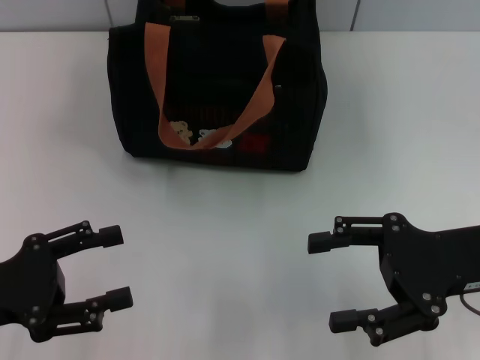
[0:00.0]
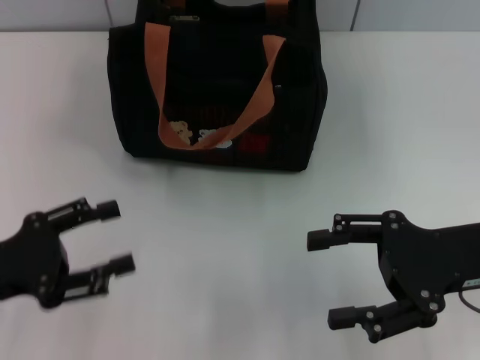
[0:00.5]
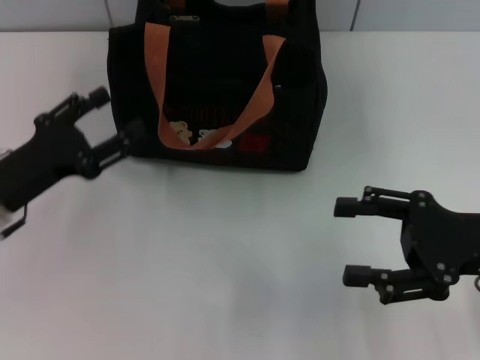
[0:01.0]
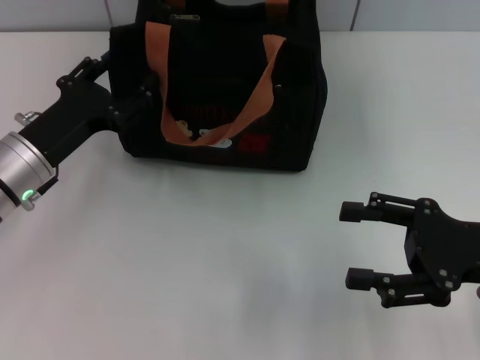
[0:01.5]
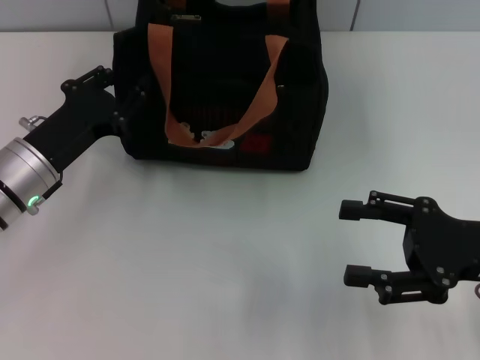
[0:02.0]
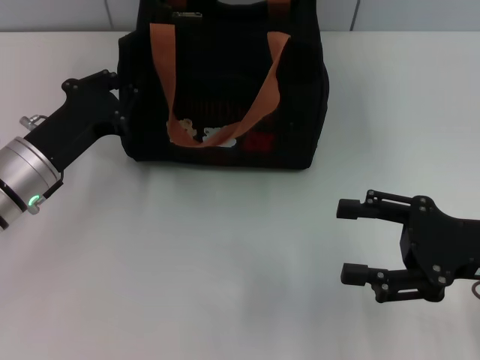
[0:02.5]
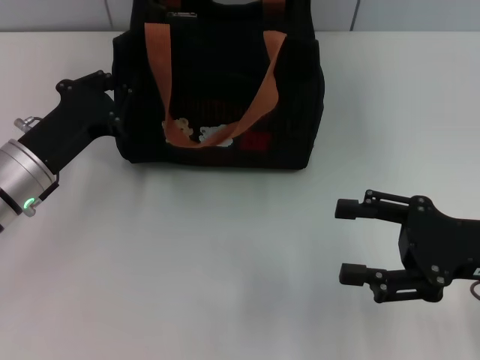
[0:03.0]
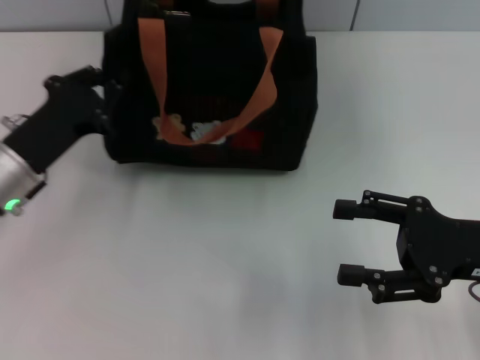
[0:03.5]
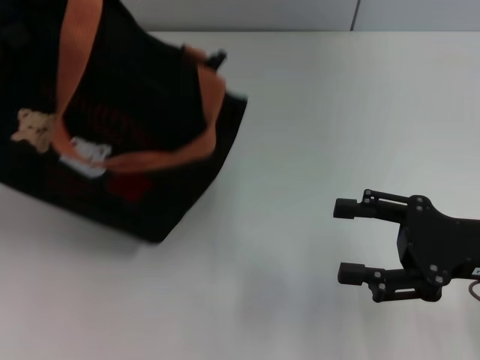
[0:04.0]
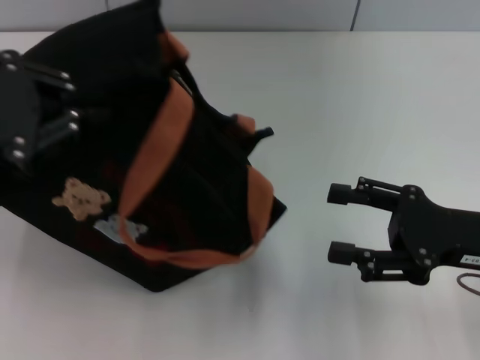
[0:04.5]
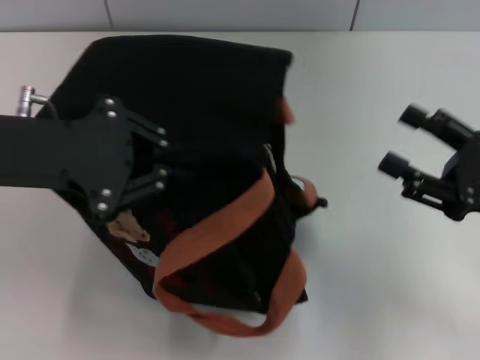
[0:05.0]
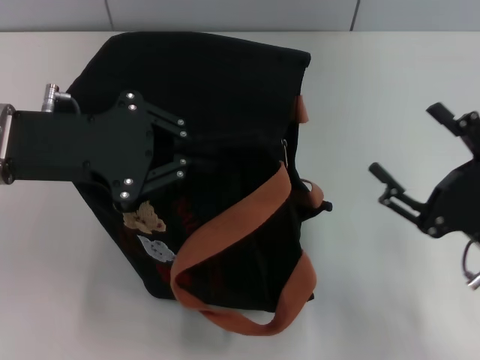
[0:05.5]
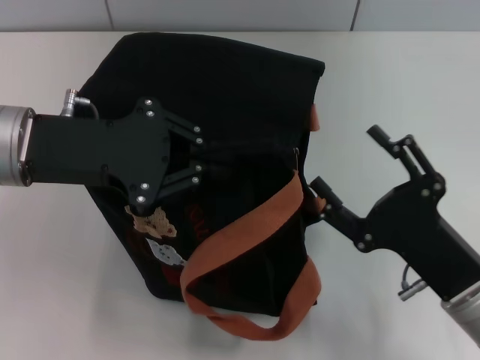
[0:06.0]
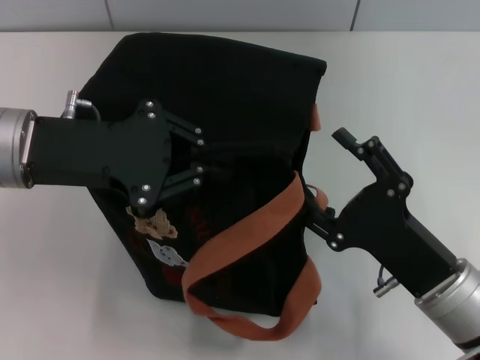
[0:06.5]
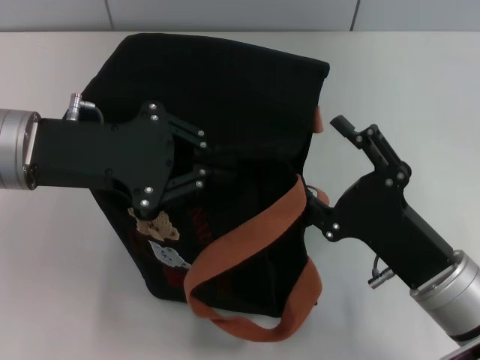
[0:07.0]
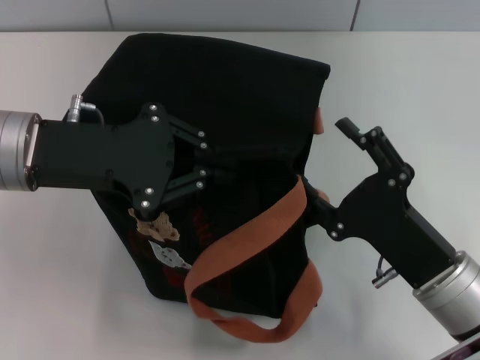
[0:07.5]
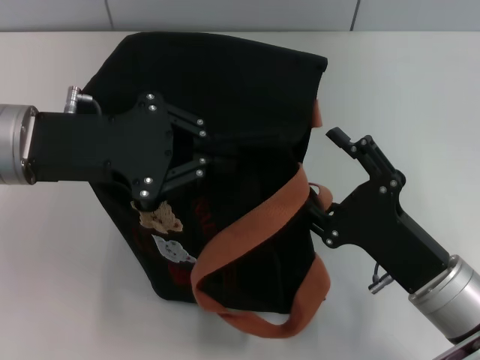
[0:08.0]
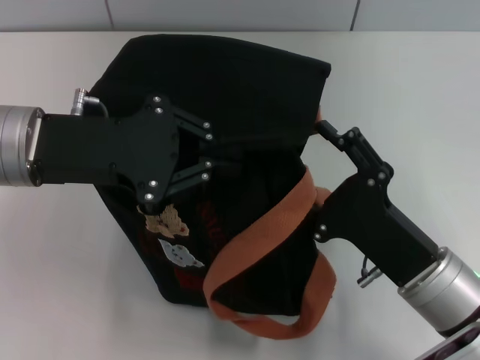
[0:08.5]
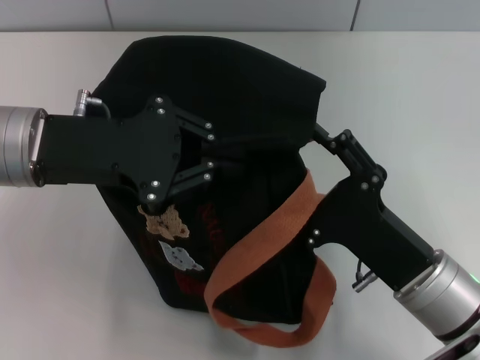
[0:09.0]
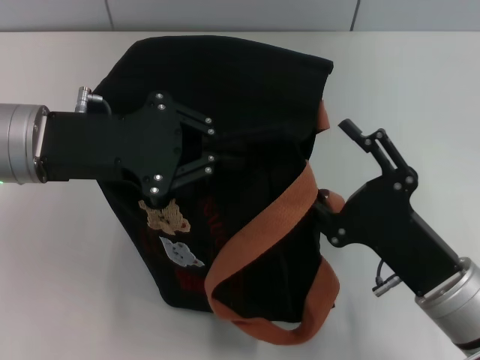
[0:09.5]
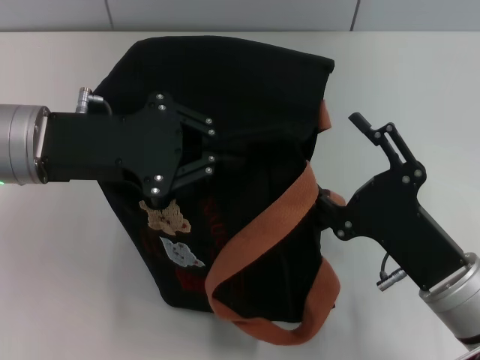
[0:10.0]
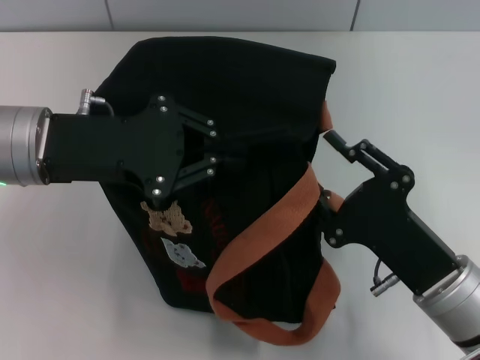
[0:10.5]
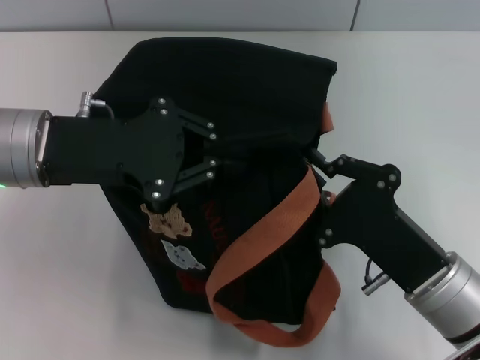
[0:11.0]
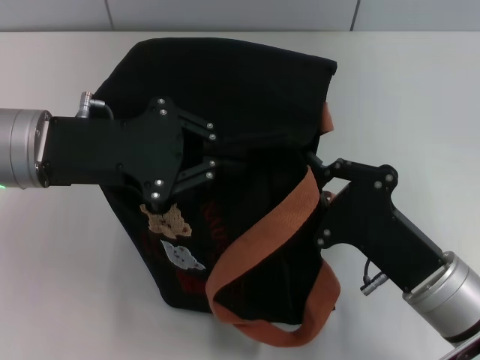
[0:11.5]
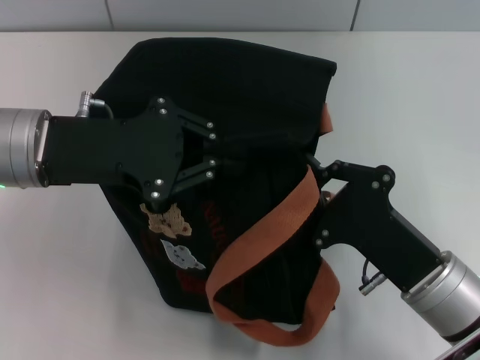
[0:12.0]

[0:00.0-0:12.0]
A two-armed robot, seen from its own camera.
0:00.0 to 0:02.0: The left gripper travels forward and to the right by approximately 15 cm.
0:02.0 to 0:04.0: The left gripper moves upward and to the left, approximately 15 cm, and closes up.
0:04.0 to 0:06.0: The right gripper is displaced to the left, backward and downward by approximately 10 cm. Meanwhile the left gripper moves to the right, some 10 cm.
0:06.0 to 0:10.0: The grippers make only small movements.
0:10.0 to 0:12.0: The right gripper closes its fingers.

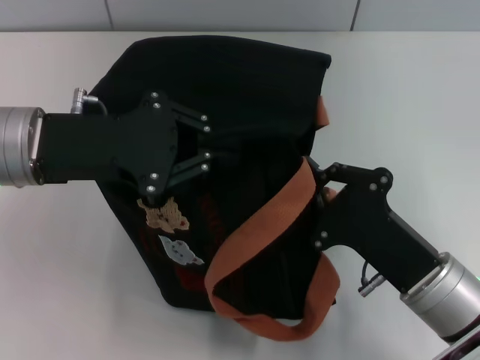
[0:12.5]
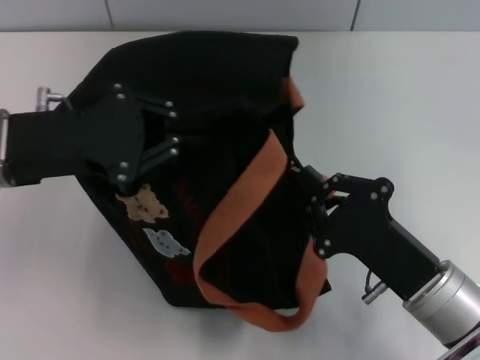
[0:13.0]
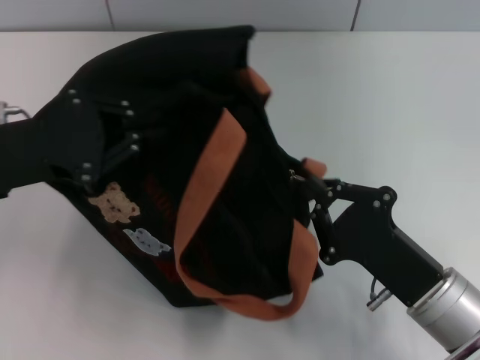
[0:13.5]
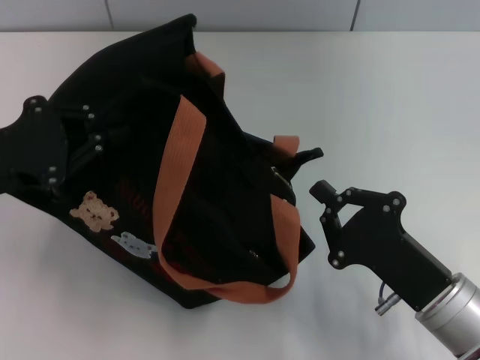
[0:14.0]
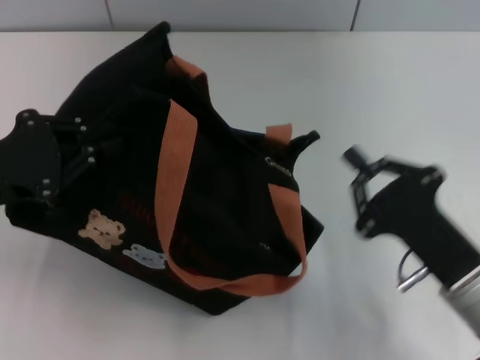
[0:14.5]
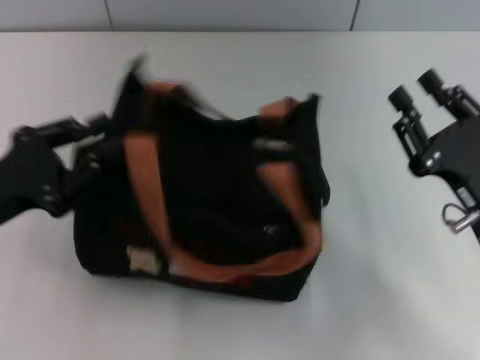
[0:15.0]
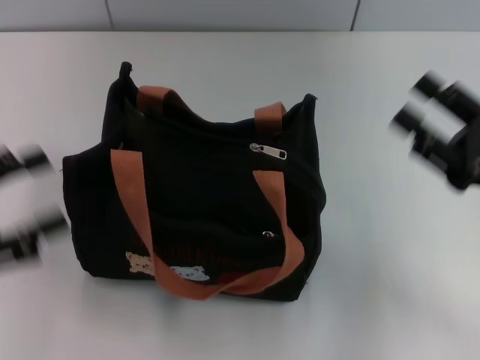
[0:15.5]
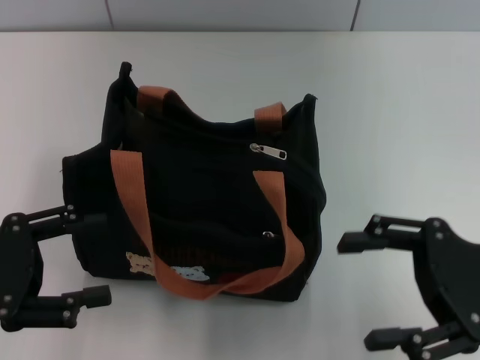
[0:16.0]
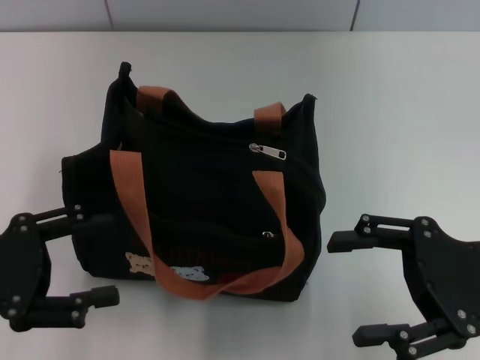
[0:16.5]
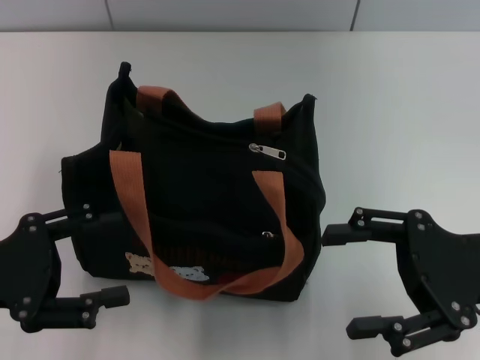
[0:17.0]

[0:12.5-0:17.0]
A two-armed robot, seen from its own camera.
Step, 0:14.0 to 0:15.0: Grab the bag with your left hand.
0:12.5 to 0:14.5: The left gripper is displaced to the left by roughly 10 cm.
0:14.5 to 0:17.0: The right gripper shifts approximately 5 cm upward, and opens its fingers, while the left gripper travels backward by roughly 5 cm, and opens its fingers.

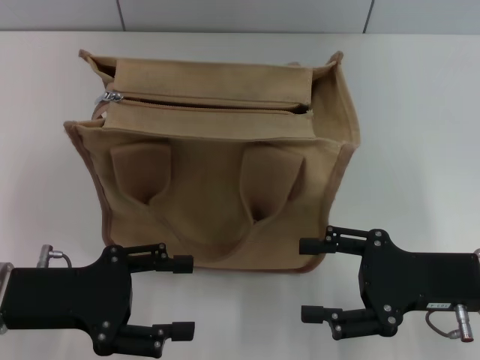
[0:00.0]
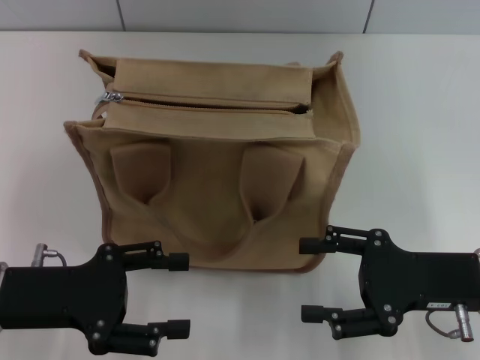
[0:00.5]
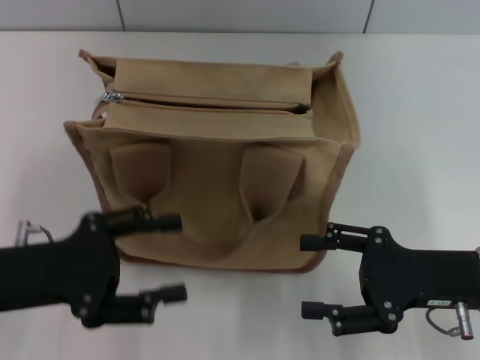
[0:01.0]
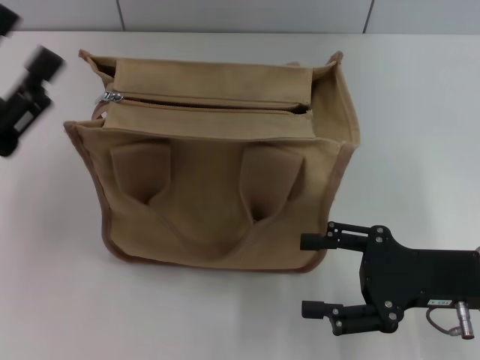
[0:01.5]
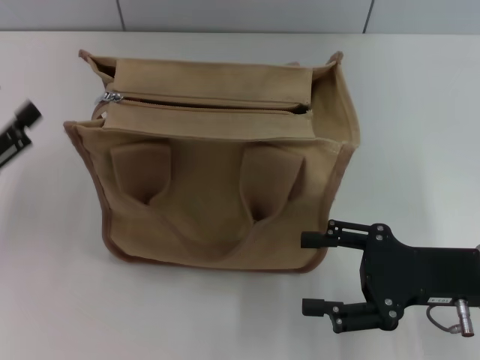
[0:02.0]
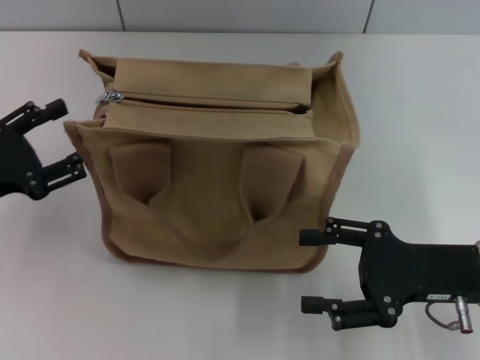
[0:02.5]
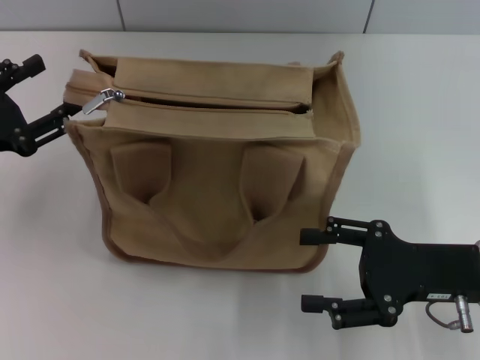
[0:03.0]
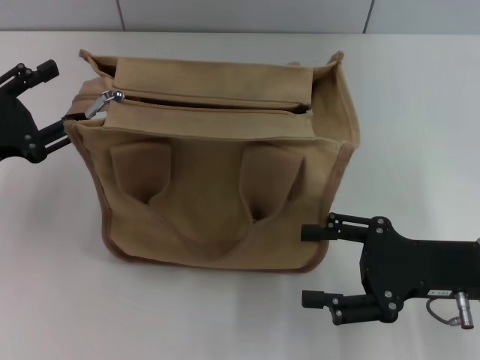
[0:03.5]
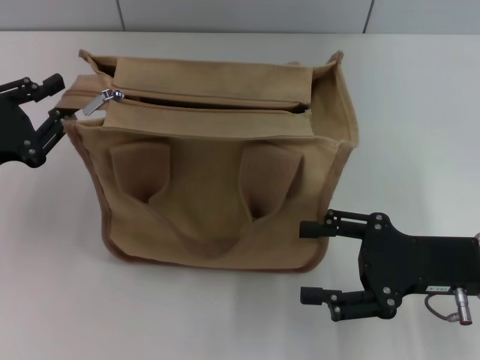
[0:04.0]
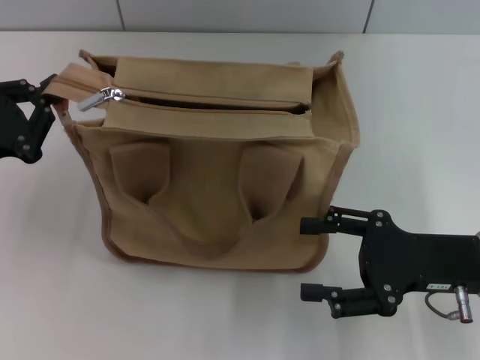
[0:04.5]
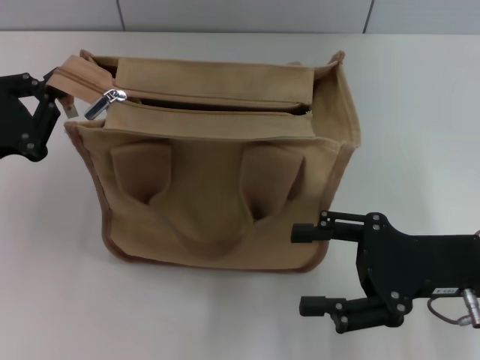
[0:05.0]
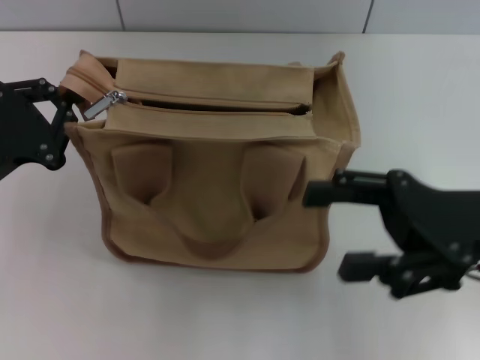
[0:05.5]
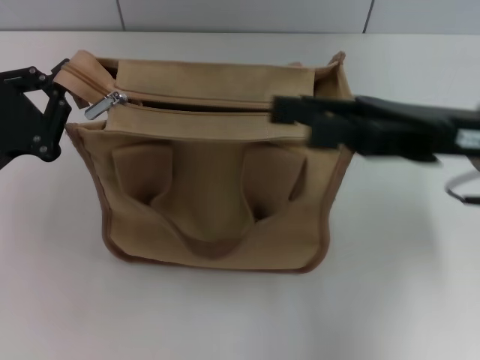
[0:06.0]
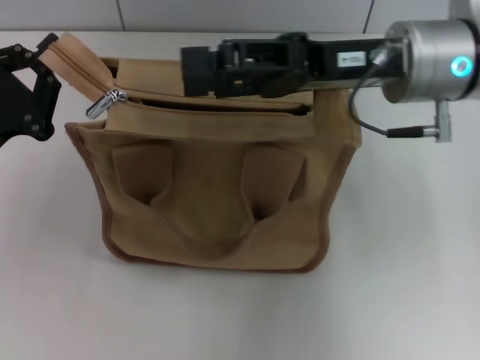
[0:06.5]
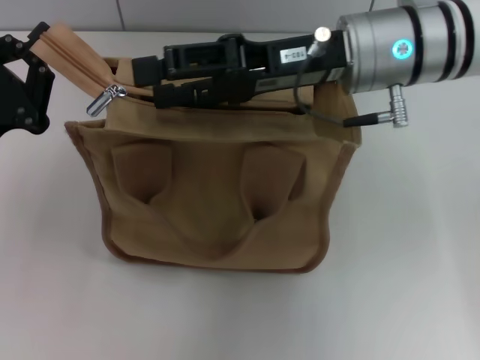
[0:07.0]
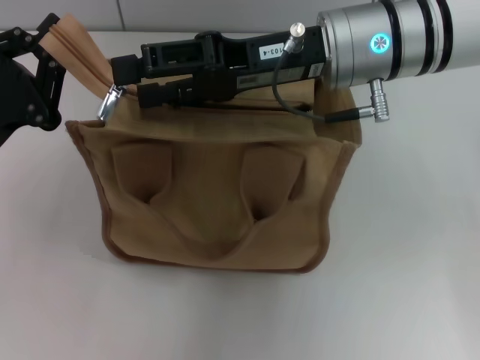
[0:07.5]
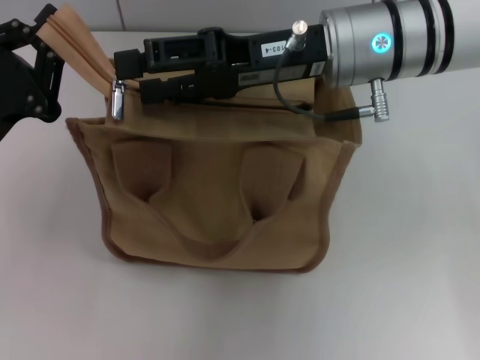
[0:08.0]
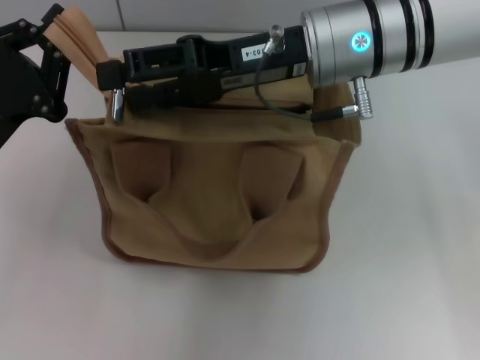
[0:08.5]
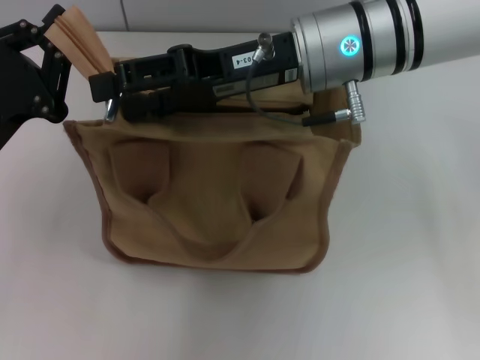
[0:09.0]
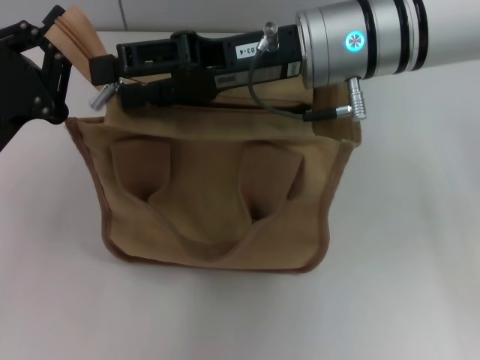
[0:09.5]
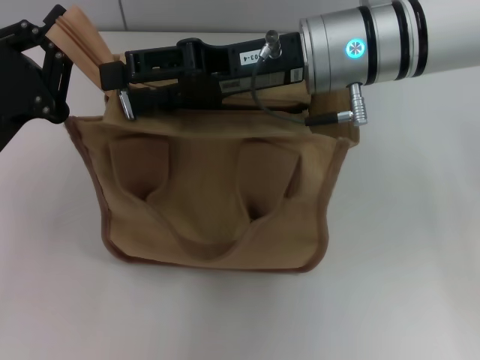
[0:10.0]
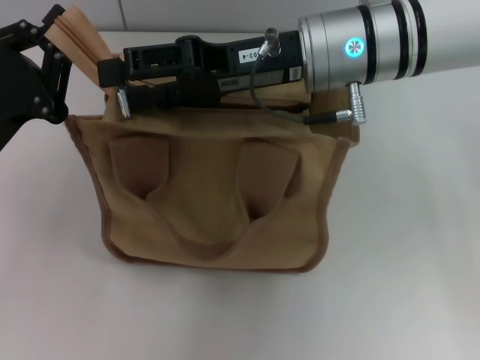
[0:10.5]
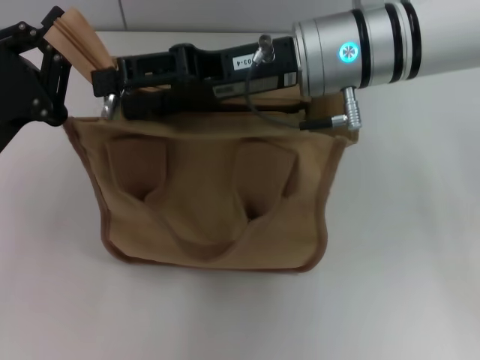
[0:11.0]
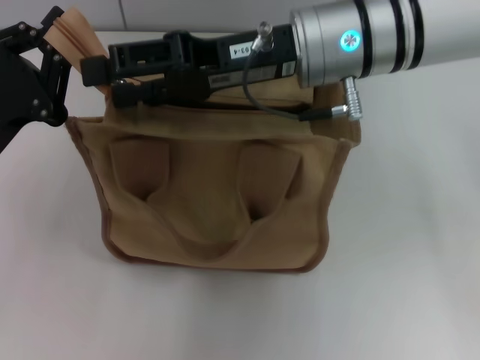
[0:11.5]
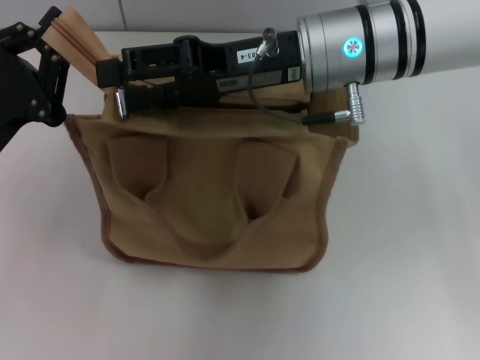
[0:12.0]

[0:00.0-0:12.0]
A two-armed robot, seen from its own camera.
0:00.0 to 0:02.0: The left gripper travels to the left by some 10 cm.
0:02.0 to 0:04.0: The left gripper closes its fingers.
0:04.0 to 0:06.0: The left gripper closes its fingers, while the right gripper shifts about 10 cm upward and forward.
0:06.0 to 0:08.0: The right gripper is displaced to the left and forward by roughly 15 cm.
0:08.0 to 0:10.0: The grippers move only a little.
0:10.0 to 0:12.0: Both grippers stay about where they are.
